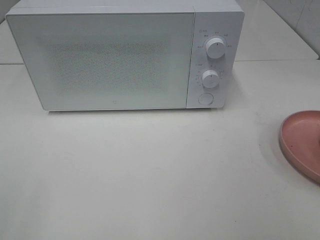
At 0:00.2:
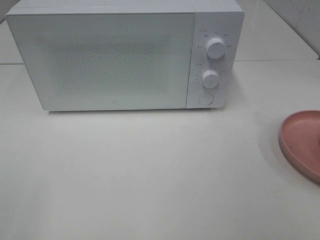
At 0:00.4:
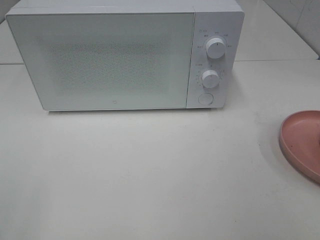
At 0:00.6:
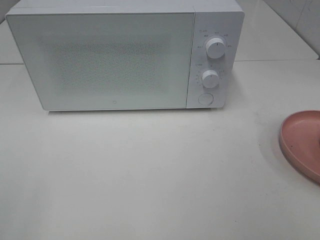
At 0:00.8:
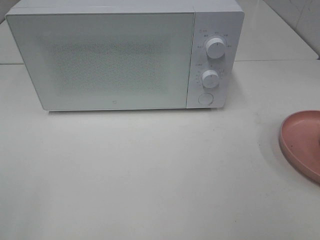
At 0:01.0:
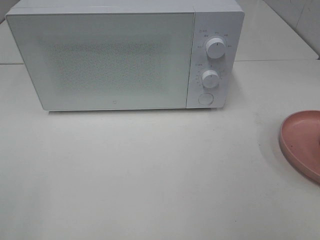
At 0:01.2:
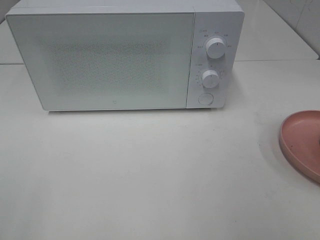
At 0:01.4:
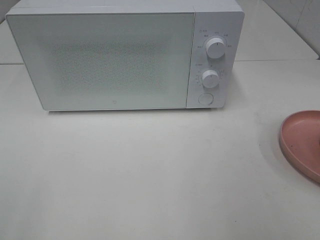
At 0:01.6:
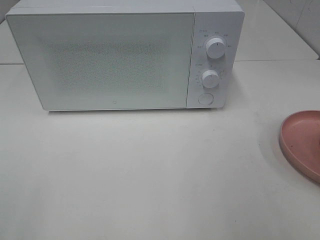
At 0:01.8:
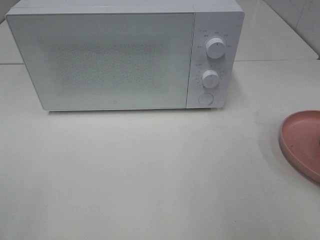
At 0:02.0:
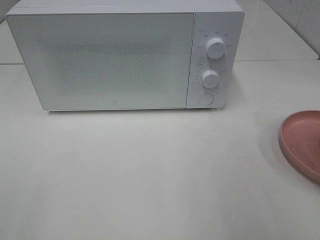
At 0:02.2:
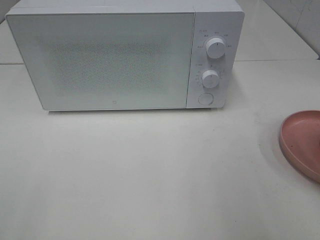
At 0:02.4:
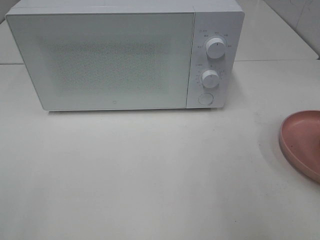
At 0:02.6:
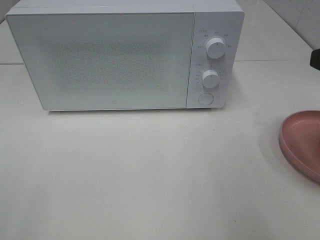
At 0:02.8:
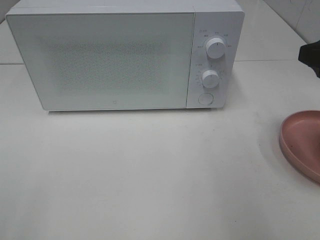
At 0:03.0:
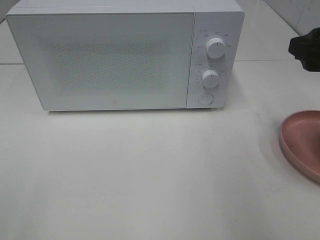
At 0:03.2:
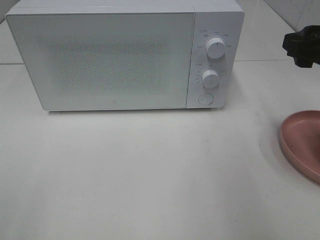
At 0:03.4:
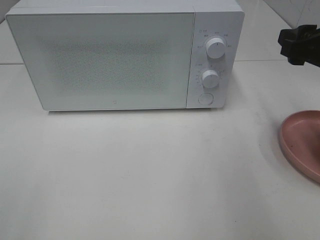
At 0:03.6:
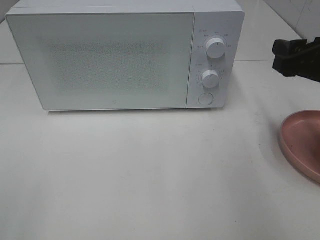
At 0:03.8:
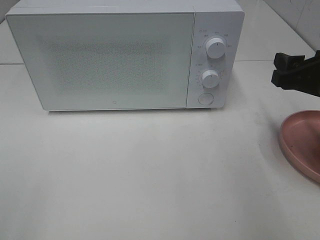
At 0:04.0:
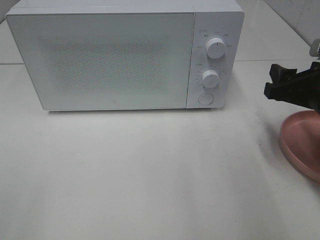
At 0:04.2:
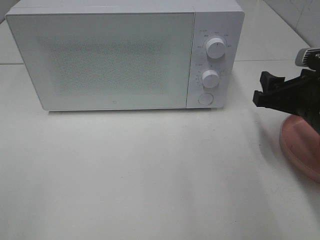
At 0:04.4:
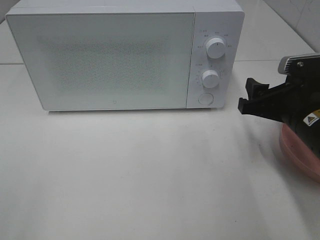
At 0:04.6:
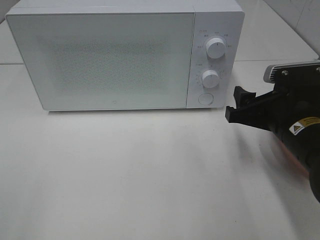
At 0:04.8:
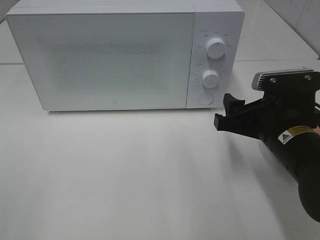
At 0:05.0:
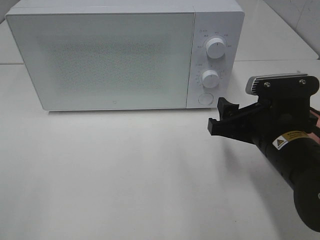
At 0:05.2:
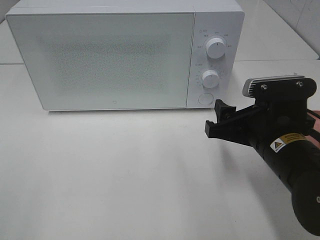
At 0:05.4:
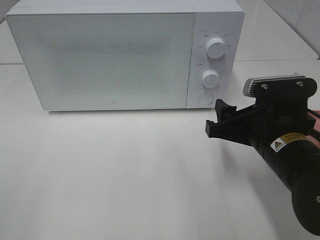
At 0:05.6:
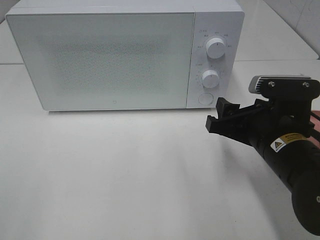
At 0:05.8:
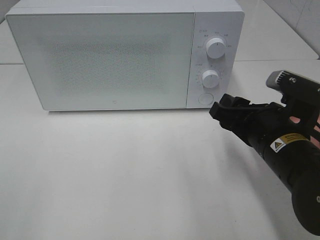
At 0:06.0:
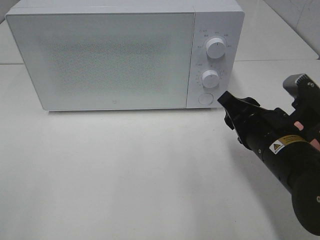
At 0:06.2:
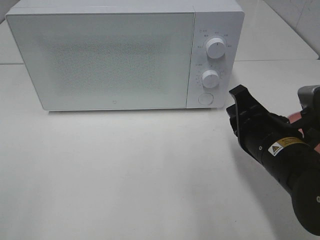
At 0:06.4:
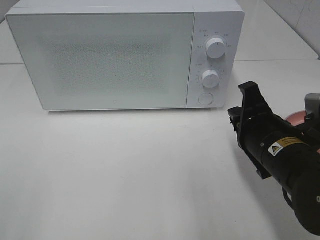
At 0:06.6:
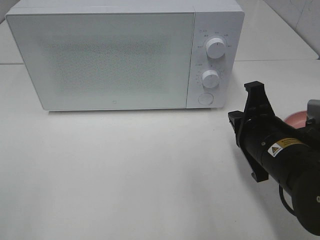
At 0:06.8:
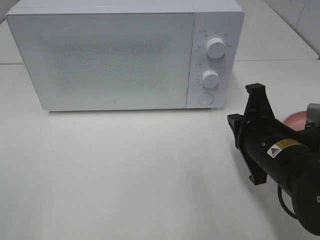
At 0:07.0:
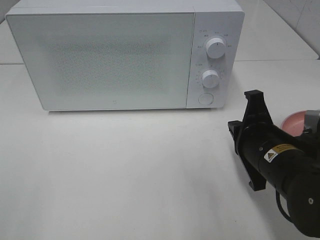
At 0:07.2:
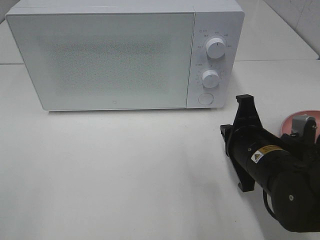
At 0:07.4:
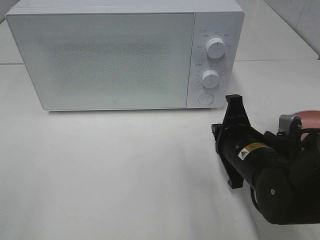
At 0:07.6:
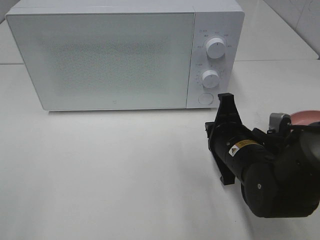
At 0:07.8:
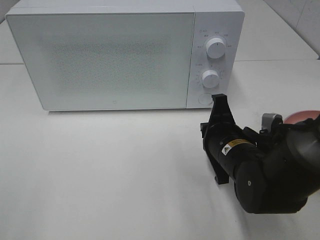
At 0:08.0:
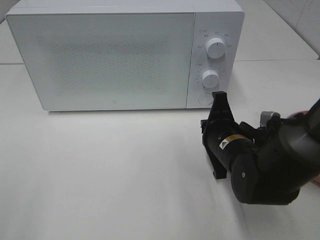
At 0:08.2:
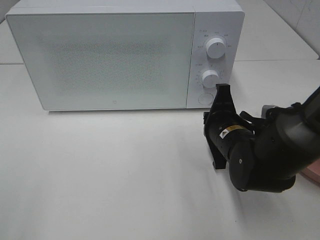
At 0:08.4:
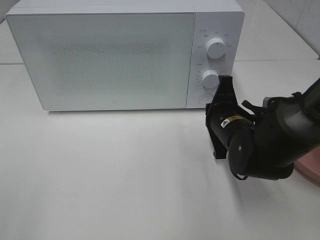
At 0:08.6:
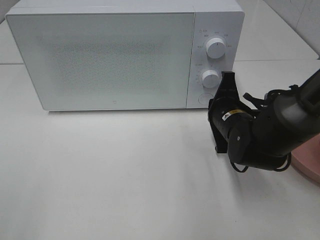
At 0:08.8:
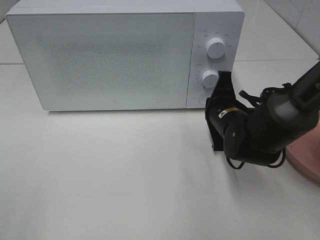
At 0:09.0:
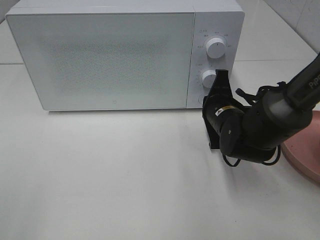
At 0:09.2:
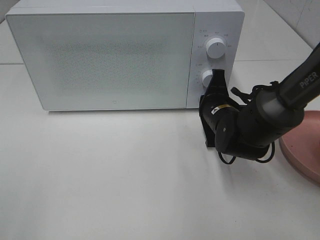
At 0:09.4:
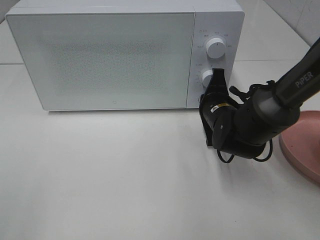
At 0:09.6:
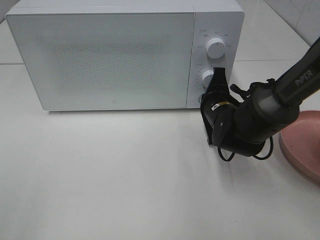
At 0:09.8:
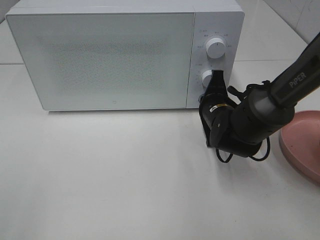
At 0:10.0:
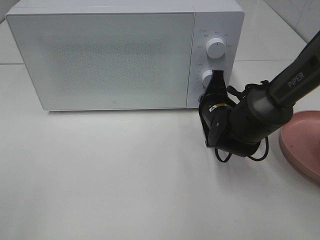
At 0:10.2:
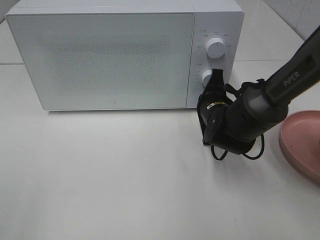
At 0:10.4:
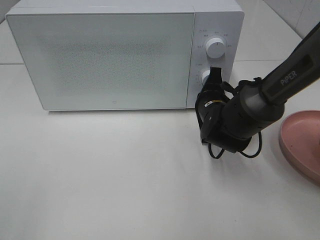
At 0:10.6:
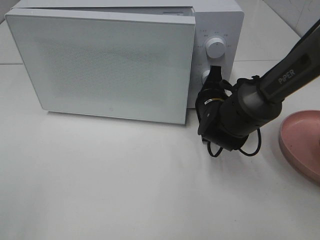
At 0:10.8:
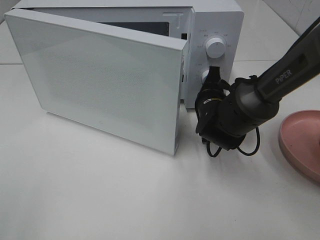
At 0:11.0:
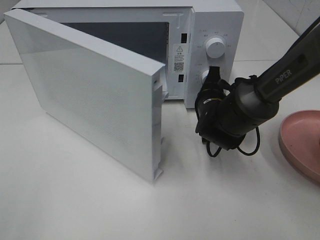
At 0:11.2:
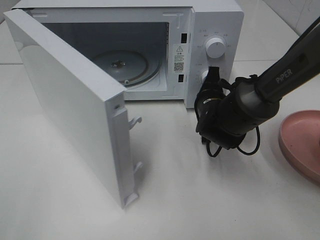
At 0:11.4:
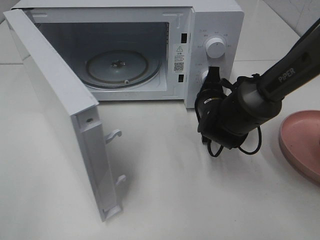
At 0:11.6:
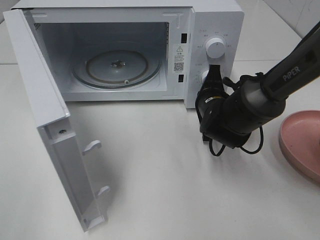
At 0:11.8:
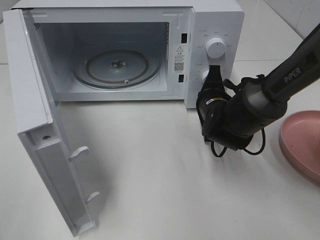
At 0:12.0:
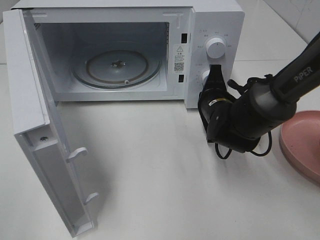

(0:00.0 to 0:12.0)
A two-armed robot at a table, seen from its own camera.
Task of the whole recording: Heat the burger.
0:01.6 - 0:03.0: The right gripper goes some 15 cm forward.
0:03.0 - 0:04.4: The right gripper shifts about 10 cm downward.
0:04.4 - 0:06.0: The right gripper is displaced to the left by about 5 cm.
0:06.0 - 0:07.6: The right gripper ends up approximately 5 cm from where it was, and closes.
0:07.6 - 0:09.0: The right gripper shifts about 10 cm forward.
0:09.0 - 0:10.4: The grippers make only small movements.

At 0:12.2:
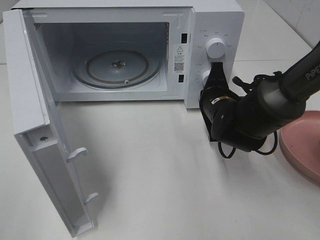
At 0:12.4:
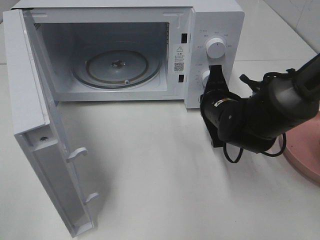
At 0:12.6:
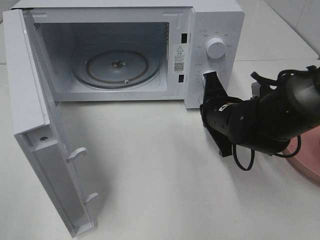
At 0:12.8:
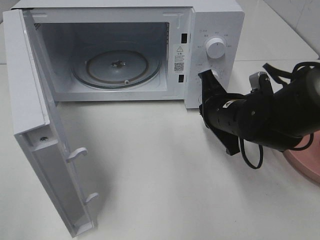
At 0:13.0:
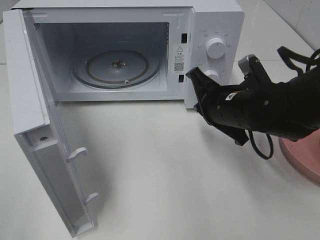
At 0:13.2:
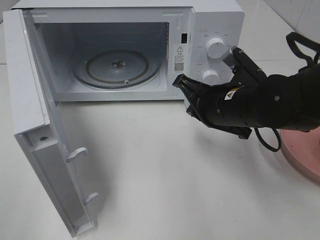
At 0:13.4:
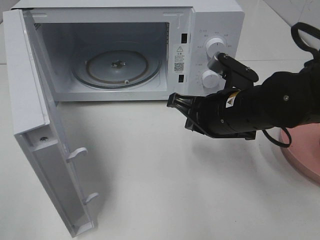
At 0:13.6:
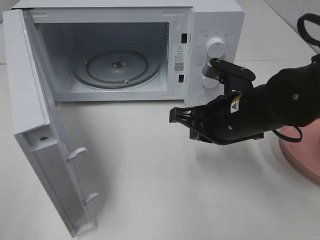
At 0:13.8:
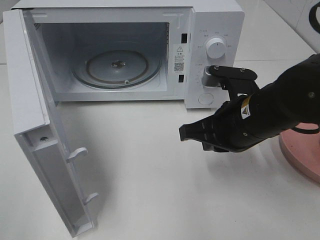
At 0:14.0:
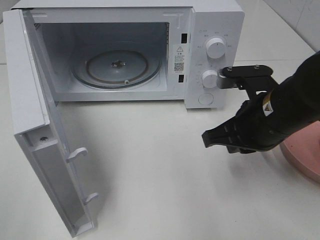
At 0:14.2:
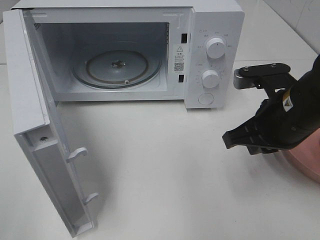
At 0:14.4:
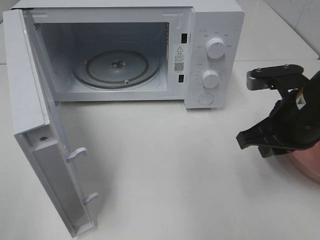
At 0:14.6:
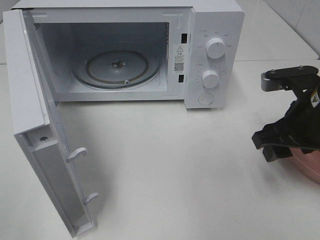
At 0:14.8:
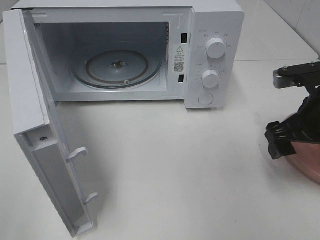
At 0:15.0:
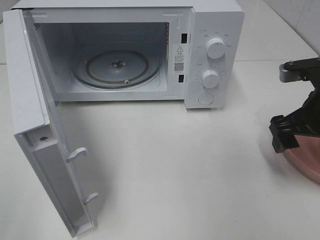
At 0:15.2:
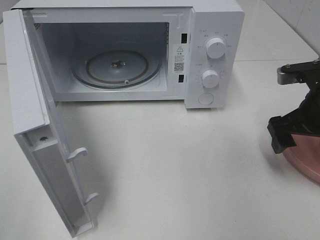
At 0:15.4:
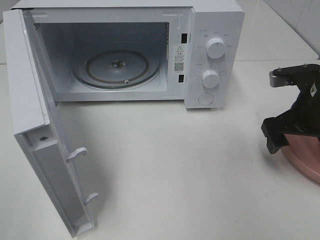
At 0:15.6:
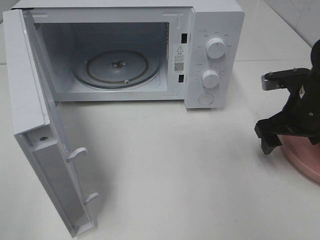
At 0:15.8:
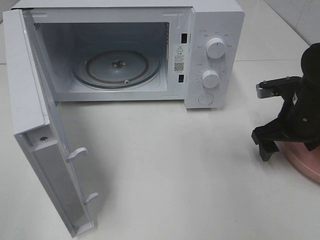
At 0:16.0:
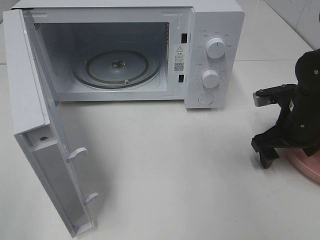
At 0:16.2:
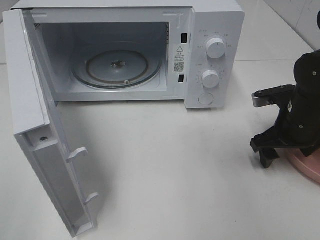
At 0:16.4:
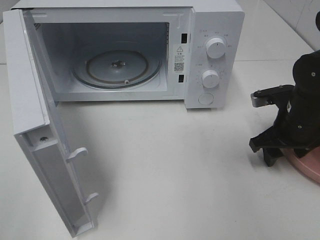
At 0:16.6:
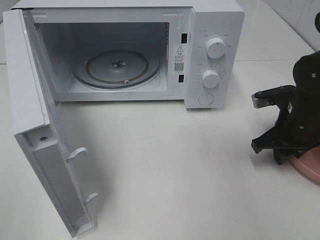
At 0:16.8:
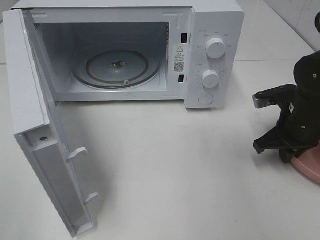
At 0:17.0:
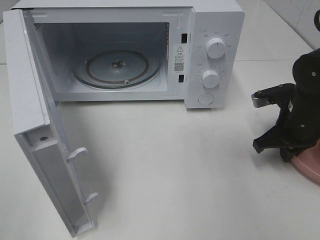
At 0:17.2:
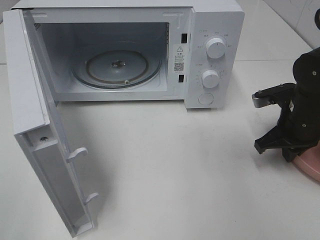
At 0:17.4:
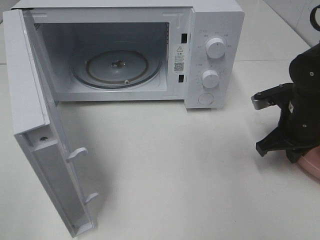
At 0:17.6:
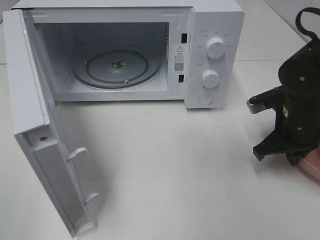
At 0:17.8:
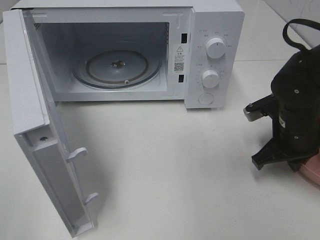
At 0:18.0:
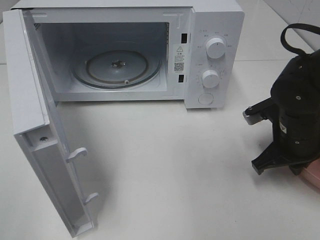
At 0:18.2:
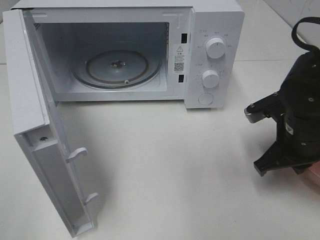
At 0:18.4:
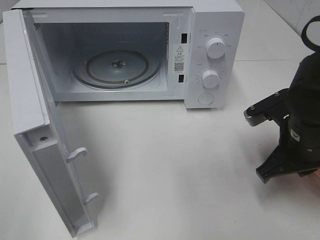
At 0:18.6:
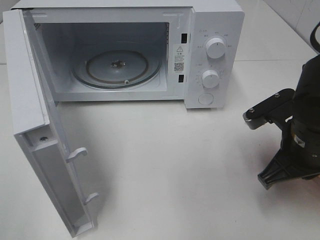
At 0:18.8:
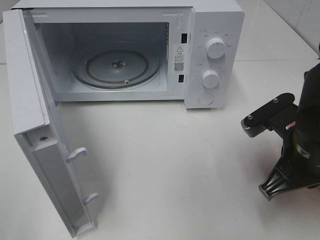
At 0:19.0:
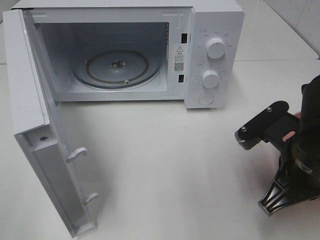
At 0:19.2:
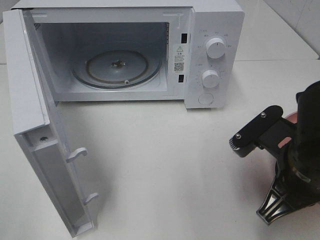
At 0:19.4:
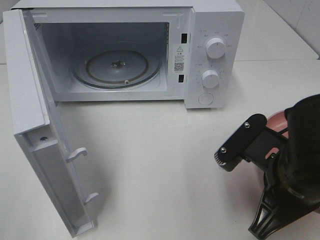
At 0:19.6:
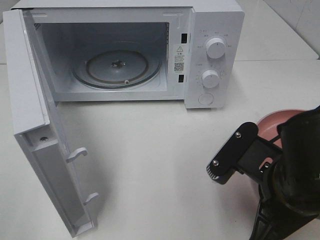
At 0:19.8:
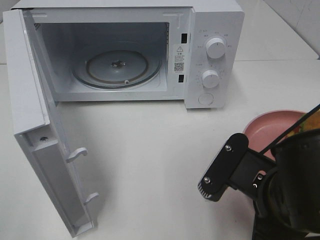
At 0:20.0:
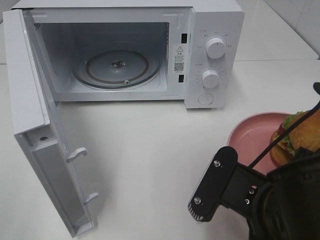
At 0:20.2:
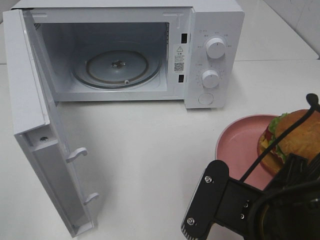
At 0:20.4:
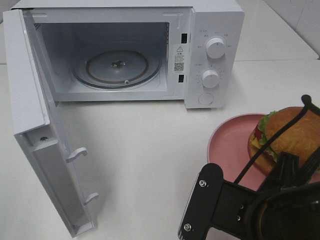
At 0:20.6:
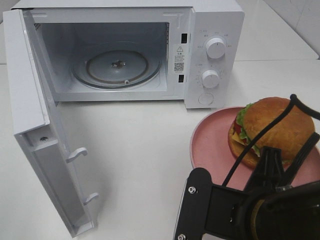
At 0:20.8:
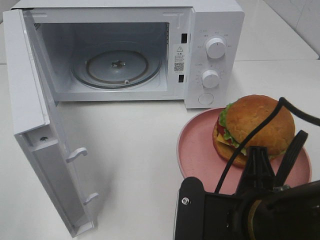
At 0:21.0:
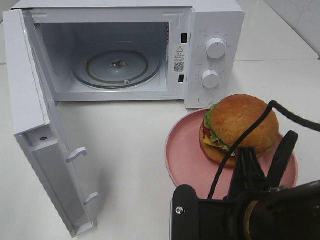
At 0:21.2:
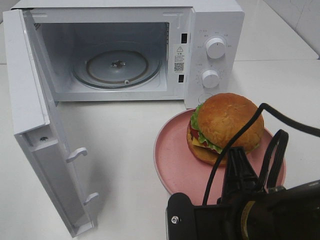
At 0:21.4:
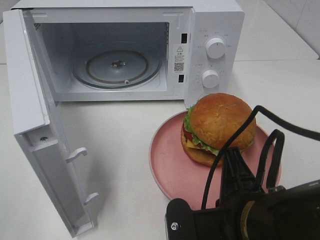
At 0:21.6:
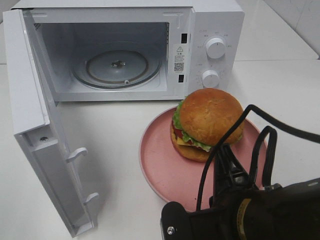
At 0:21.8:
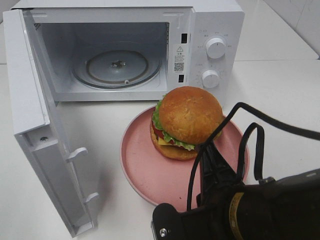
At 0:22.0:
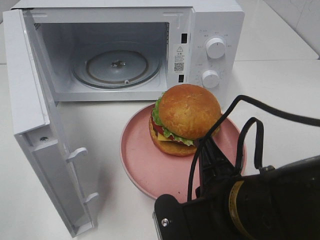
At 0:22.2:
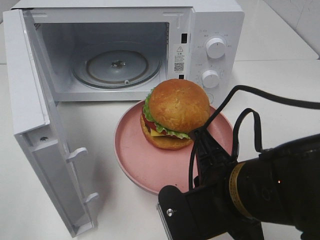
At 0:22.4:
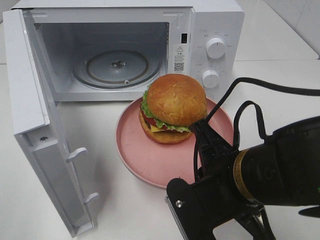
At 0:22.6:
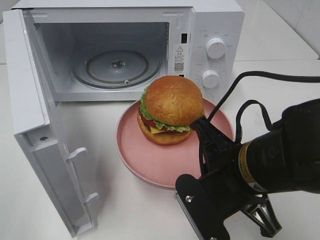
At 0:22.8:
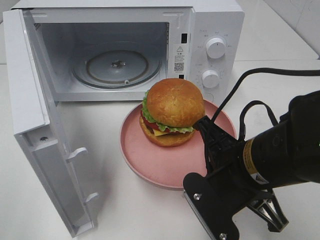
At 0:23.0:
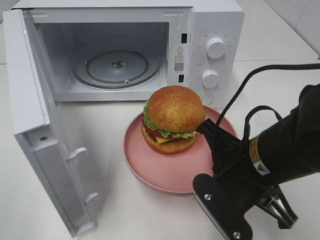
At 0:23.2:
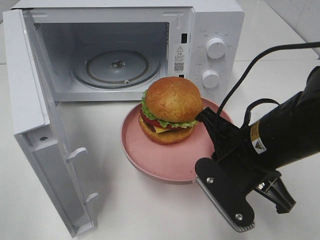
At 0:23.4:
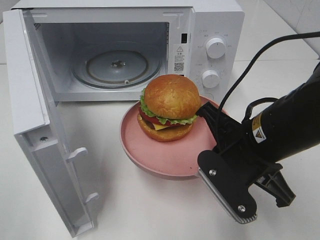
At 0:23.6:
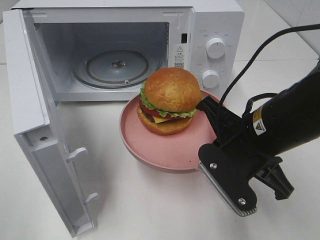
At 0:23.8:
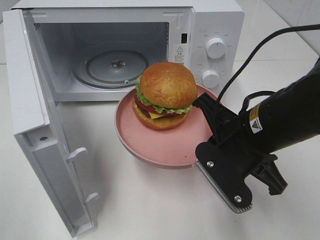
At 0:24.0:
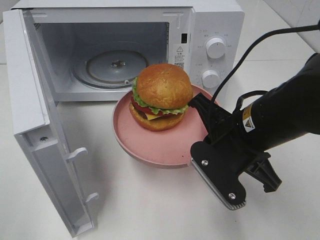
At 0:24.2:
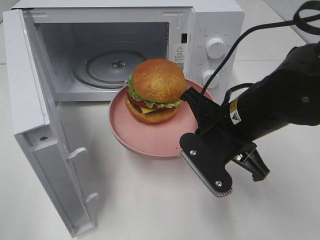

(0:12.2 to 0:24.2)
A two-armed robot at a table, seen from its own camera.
Task of the whole recording: Heat the burger.
Step, 0:12.4 - 0:16.8: Right hand: grab the plate with the hamburger.
0:12.2 - 0:13.8: The right gripper is displaced backward and upward by about 10 cm.
0:13.8 - 0:15.2: The right gripper heads to the right, covering some 10 cm, and opens its fingers.
0:15.2 - 0:16.6: The right gripper heads downward, covering approximately 5 cm, and closes.
0:16.6 - 0:18.2: The right gripper is displaced backward by some 5 cm, and closes its fingers.
0:18.2 - 0:19.8: The right gripper shifts roughly 15 cm backward and to the left.
0:21.2 - 0:22.6: The right gripper moves forward, about 5 cm.
0:22.6 - 0:24.2: The right gripper travels forward by some 5 cm.
